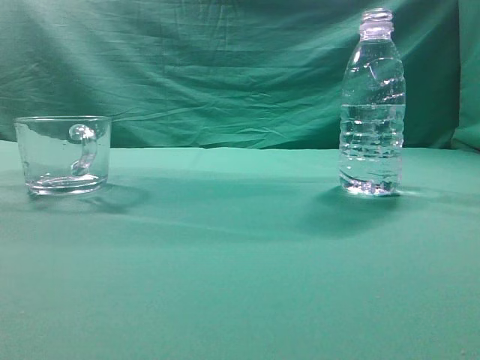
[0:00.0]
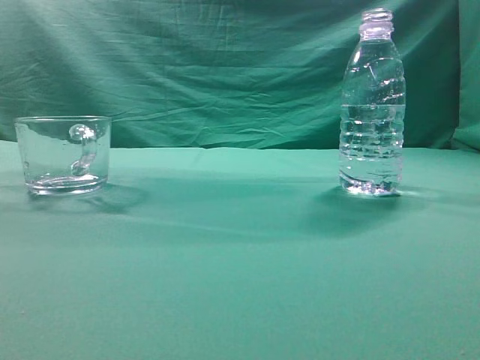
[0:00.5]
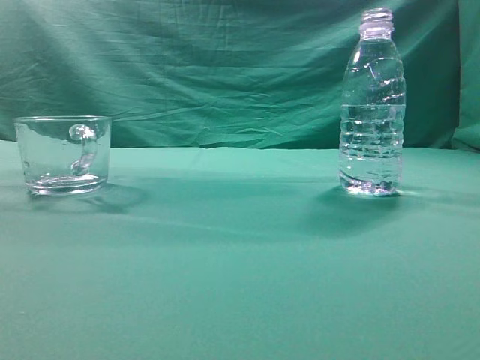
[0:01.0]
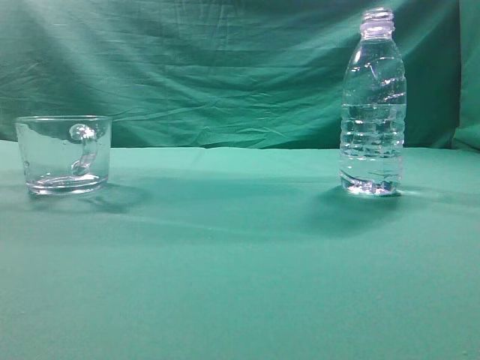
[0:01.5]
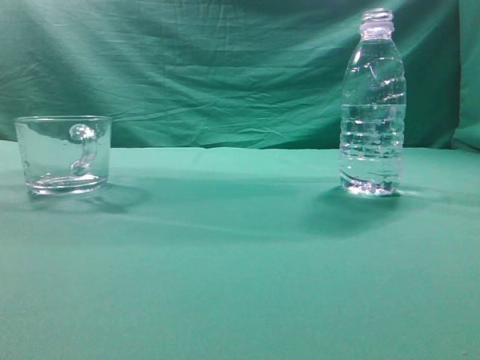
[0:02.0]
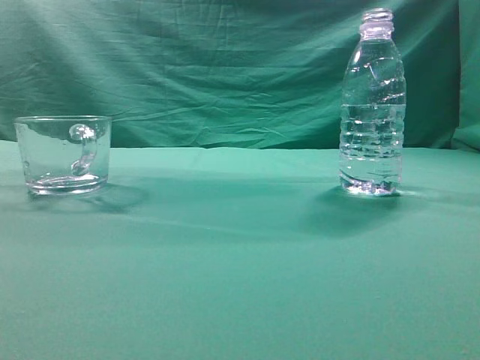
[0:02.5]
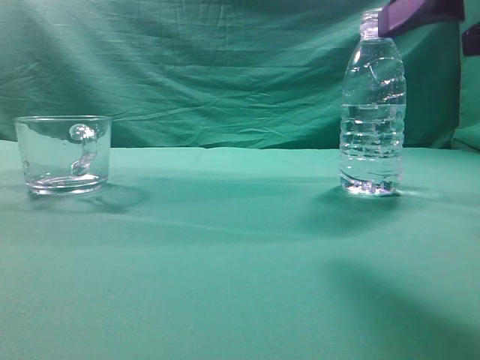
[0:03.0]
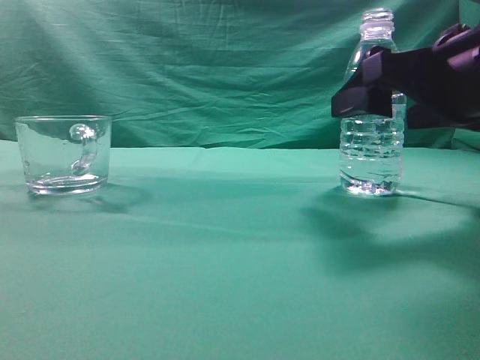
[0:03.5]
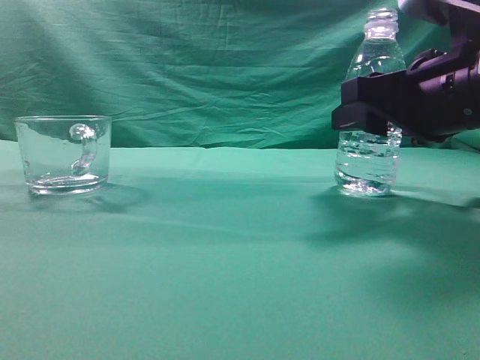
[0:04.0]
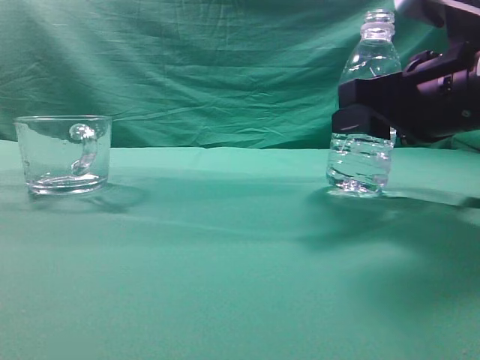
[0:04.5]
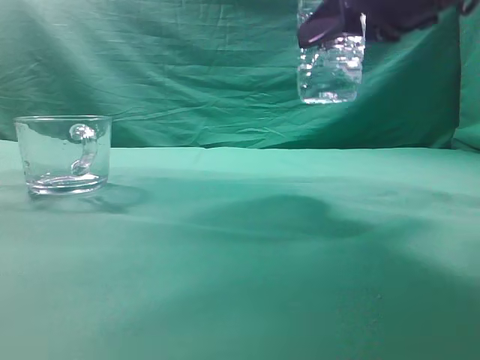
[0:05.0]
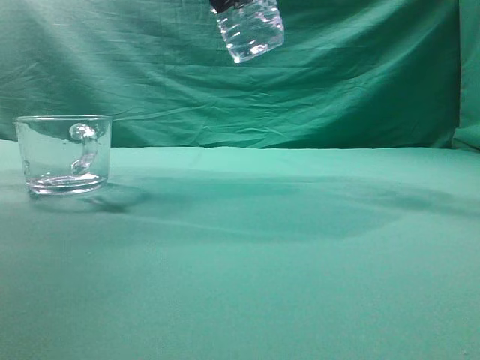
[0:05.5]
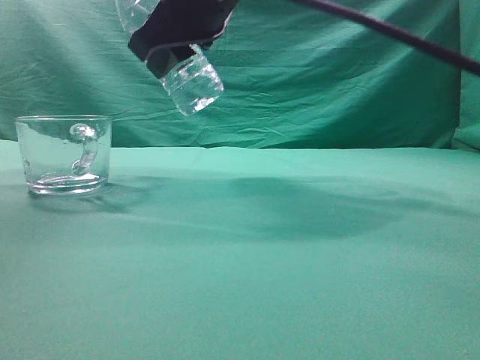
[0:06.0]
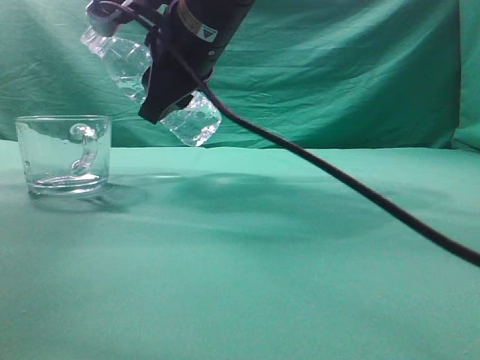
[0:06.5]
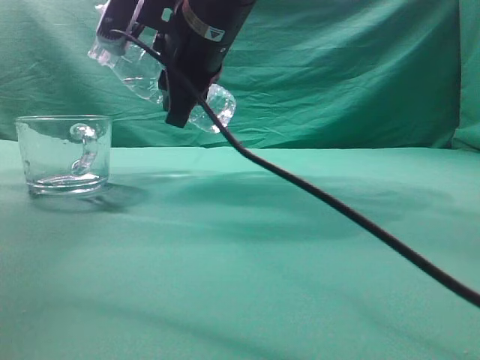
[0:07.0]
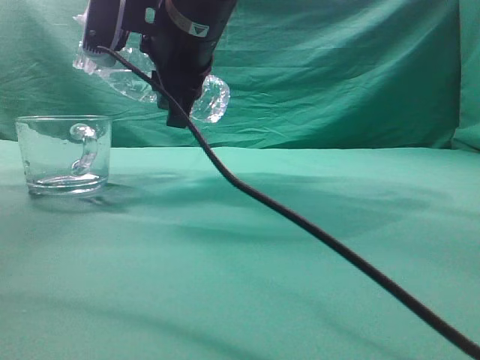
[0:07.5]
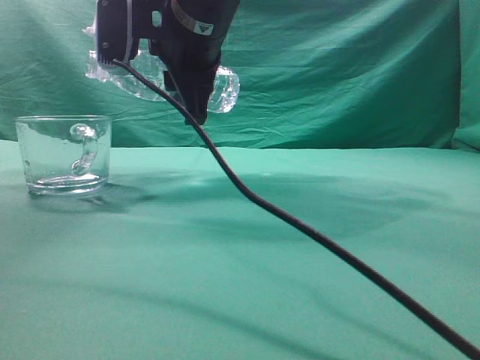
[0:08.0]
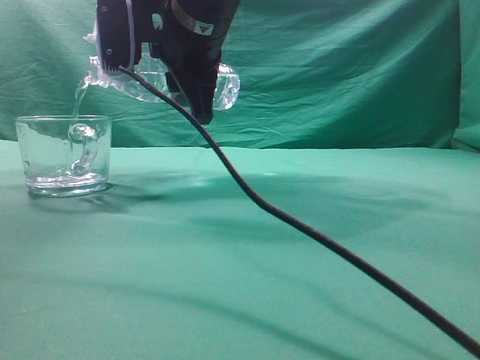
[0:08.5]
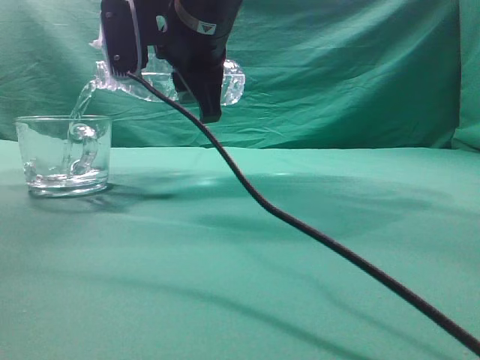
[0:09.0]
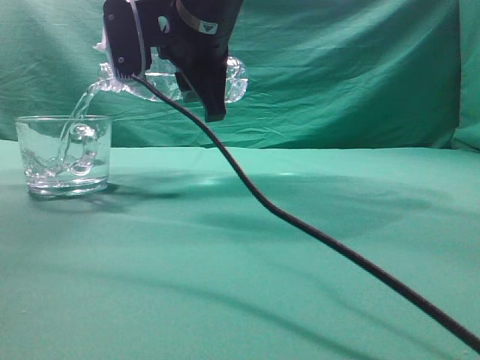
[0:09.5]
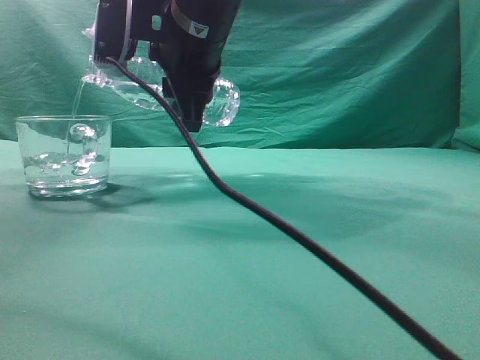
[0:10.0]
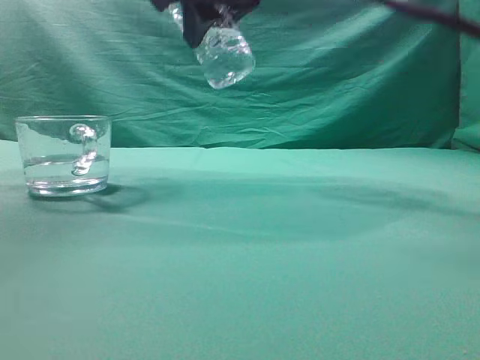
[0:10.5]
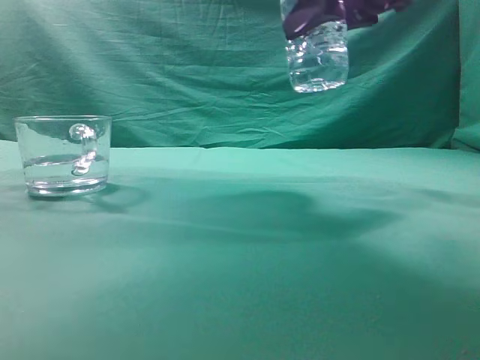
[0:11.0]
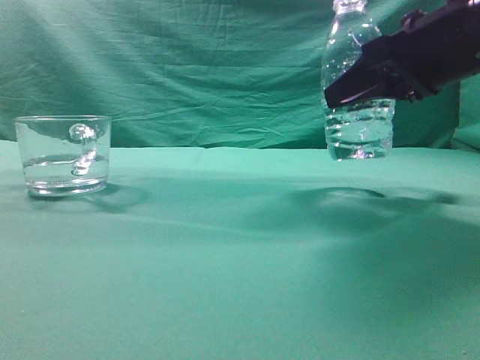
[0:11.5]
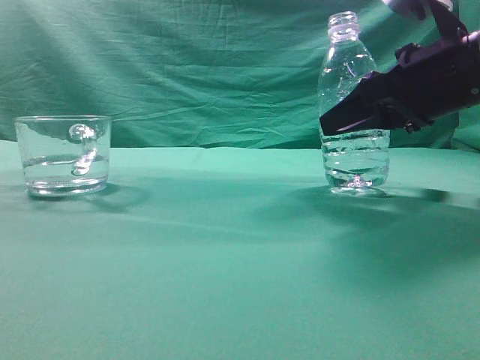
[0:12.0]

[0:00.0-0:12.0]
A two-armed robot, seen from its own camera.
Task of the whole recording: pick up the water bottle and pour the water in it into the glass.
Step, 0:00.0 to 0:04.5: Grasp the mineral water bottle.
Step, 0:05.0 to 0:10.0: Pour water into the teacup.
0:02.0 to 0:04.0: The right gripper heads forward, downward and to the left, covering approximately 25 cm, and opens up.
0:04.0 to 0:06.0: The right gripper heads to the left and upward, covering about 25 cm.
0:08.0 to 0:10.0: The grippers make only small movements.
0:10.0 to 0:12.0: The right gripper goes some 25 cm to the right.

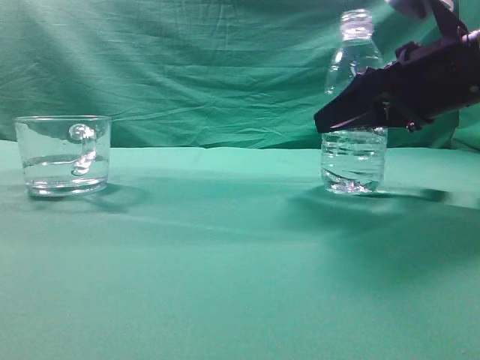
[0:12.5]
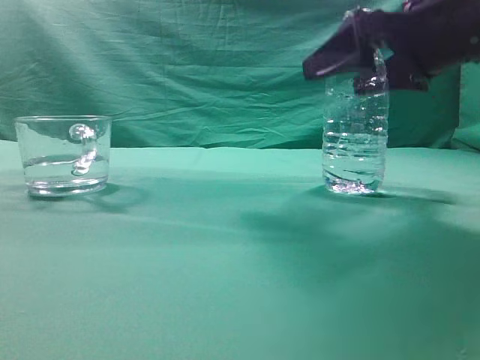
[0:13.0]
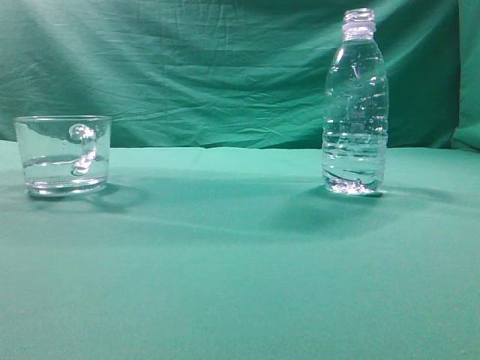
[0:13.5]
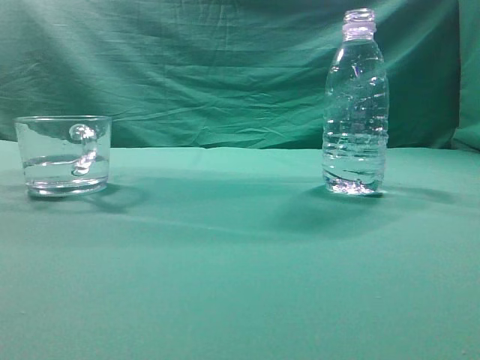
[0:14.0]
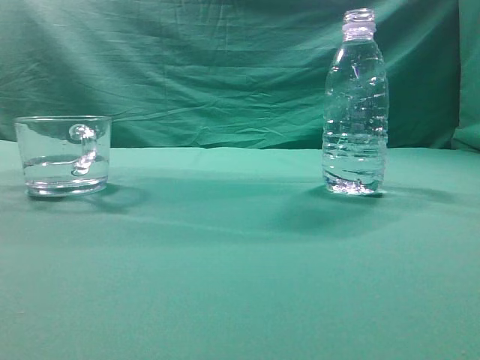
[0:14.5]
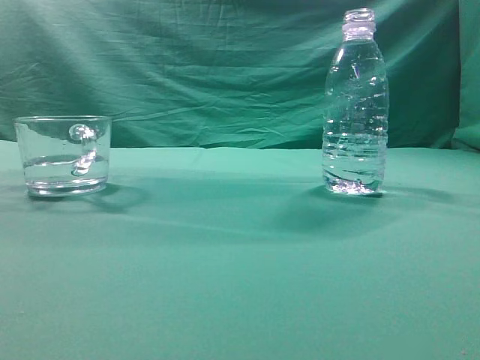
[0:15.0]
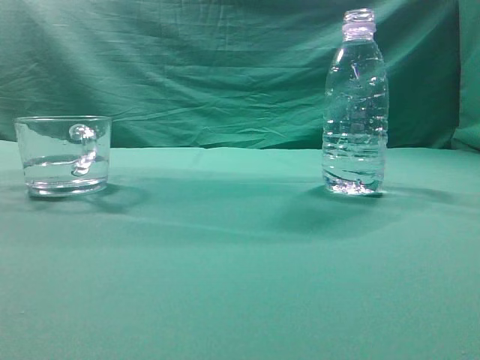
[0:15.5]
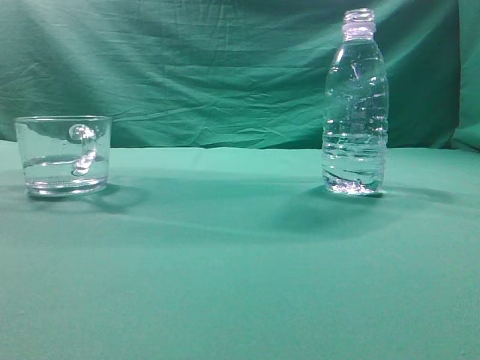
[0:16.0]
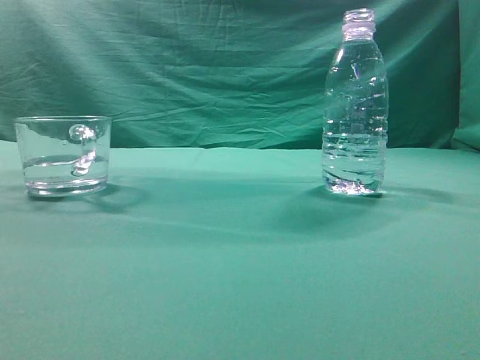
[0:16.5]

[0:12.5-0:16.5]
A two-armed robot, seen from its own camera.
Task of the whole recording: pick up the water bottle and pour the water in it into the glass.
0:12.5 to 0:14.5: The right gripper travels upward and backward by roughly 40 cm, and closes.
